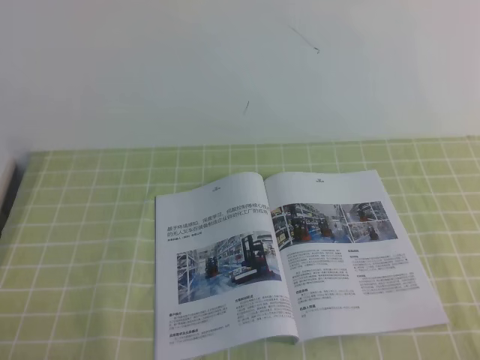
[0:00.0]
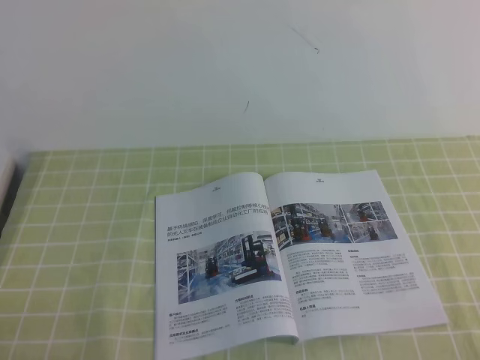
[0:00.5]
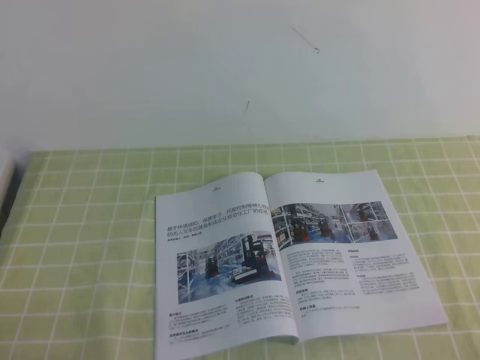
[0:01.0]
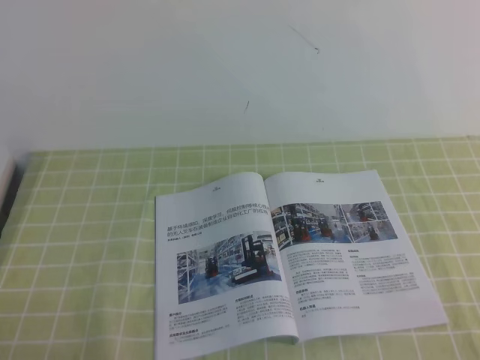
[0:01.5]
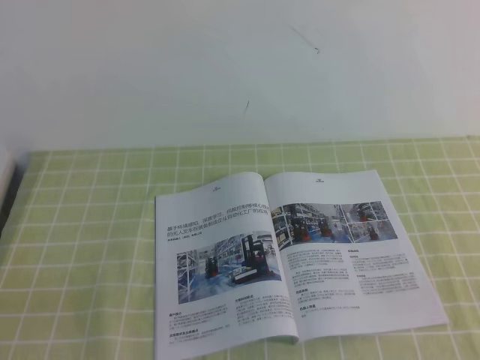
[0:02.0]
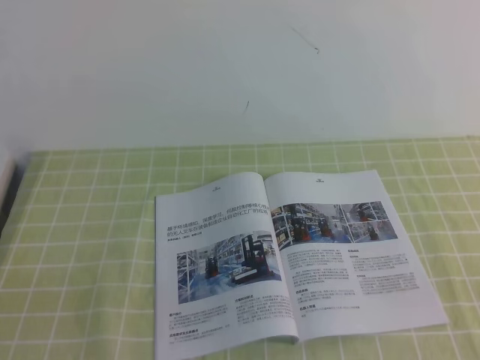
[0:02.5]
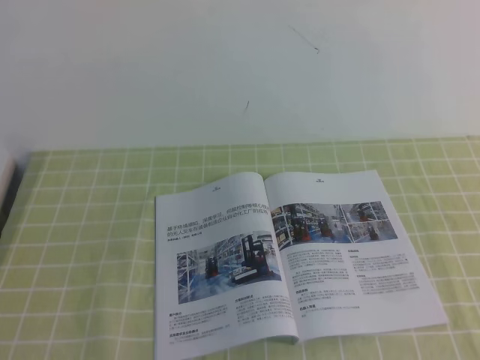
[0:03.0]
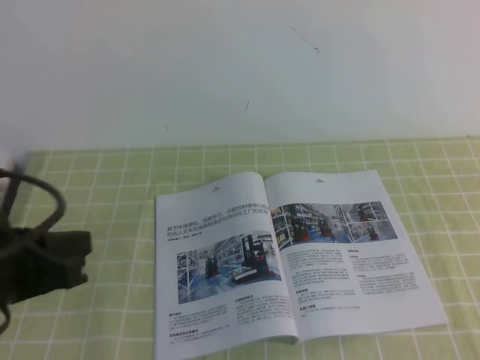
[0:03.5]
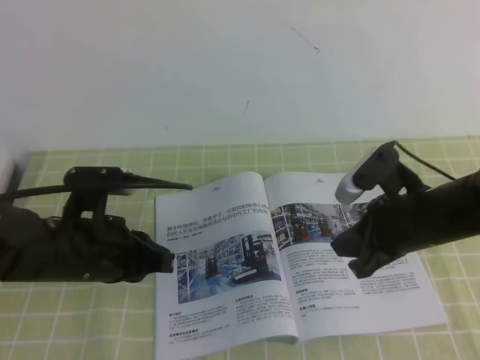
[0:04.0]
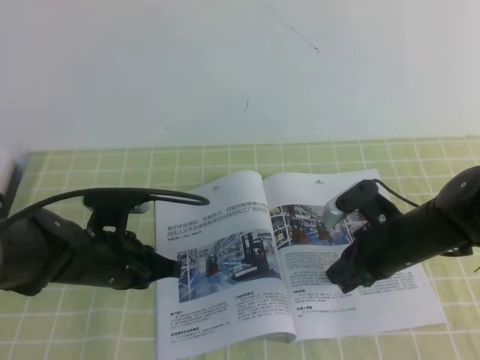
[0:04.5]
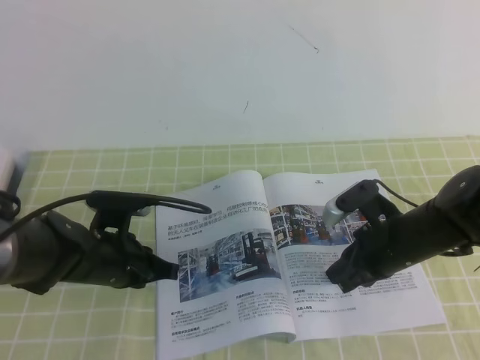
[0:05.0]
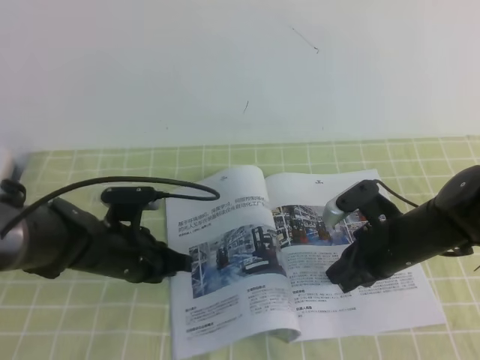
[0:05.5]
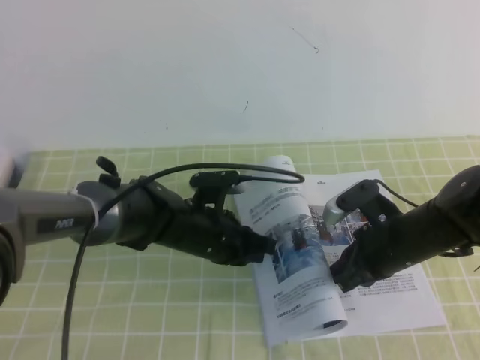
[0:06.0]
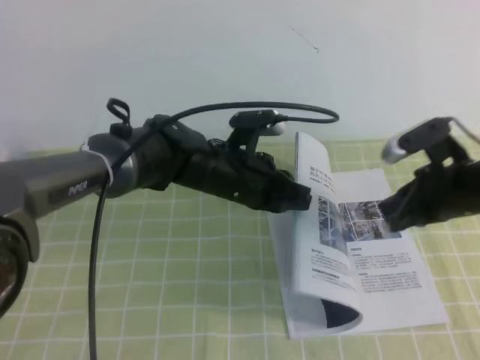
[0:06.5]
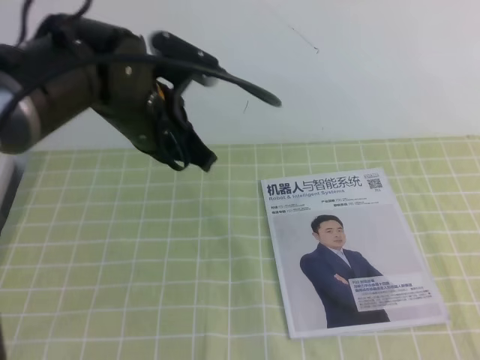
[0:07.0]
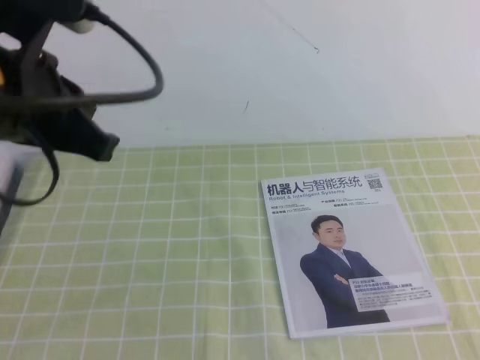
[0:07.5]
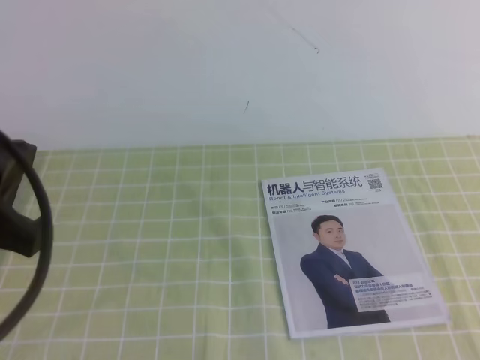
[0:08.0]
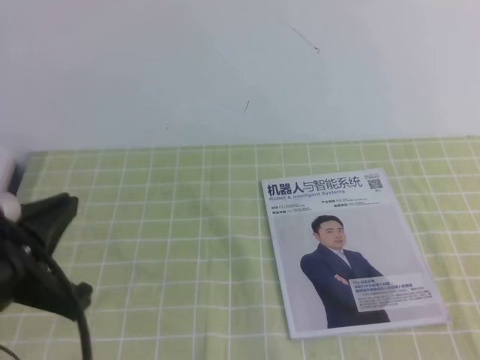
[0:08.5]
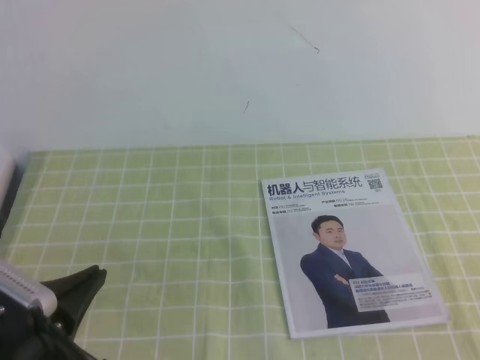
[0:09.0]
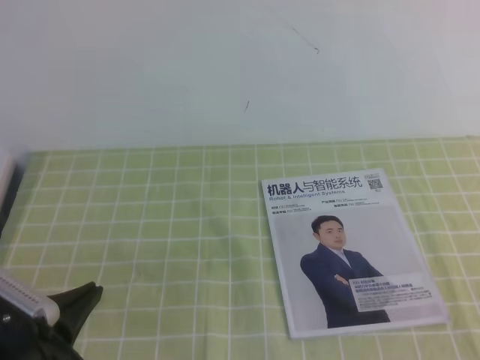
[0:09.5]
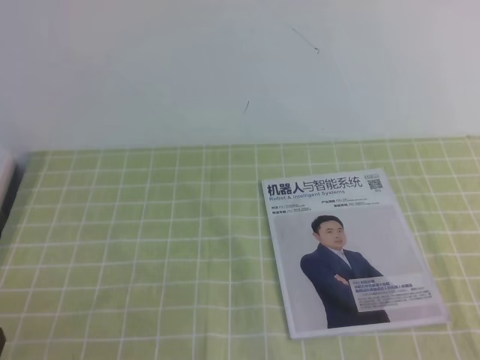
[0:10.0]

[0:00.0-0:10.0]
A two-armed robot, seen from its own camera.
Task of the whole recording: on the green tablecloth, hold the book with one hand and close it with the other.
0:02.0 to 0:04.0: The right gripper heads forward and to the left, covering some 30 cm; the left gripper is displaced forward by some 20 cm.
0:04.0 to 0:06.0: The left gripper moves to the right, forward and downward, some 15 cm. Meanwhile the right gripper is displaced downward by about 10 cm.
0:06.0 to 0:08.0: The right gripper is displaced upward, backward and to the right by about 40 cm. The left gripper goes approximately 35 cm upward, backward and to the left.
0:08.0 to 0:10.0: The left gripper moves downward and backward, about 20 cm.
